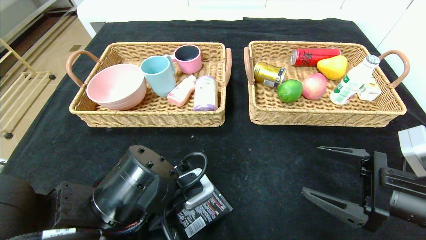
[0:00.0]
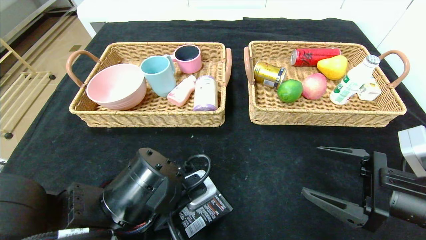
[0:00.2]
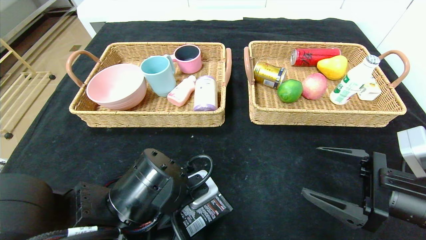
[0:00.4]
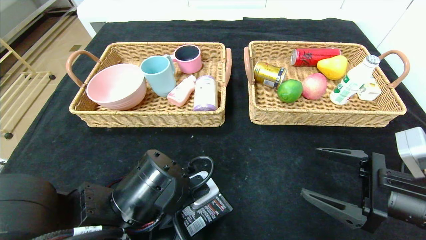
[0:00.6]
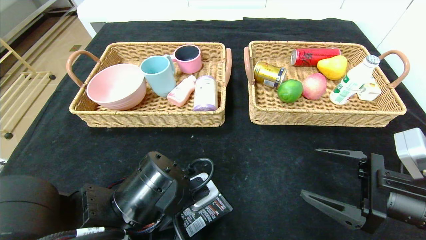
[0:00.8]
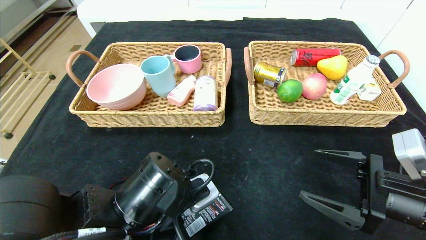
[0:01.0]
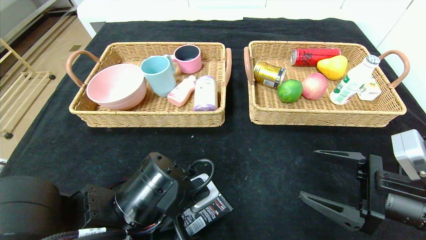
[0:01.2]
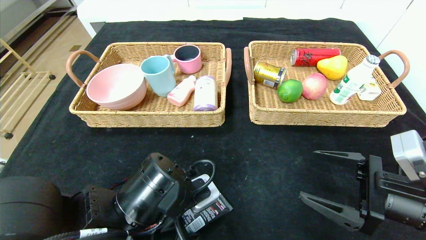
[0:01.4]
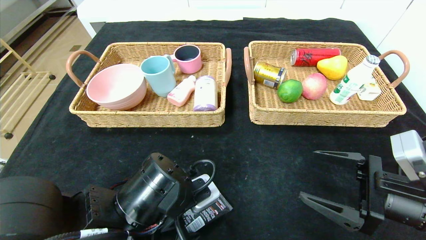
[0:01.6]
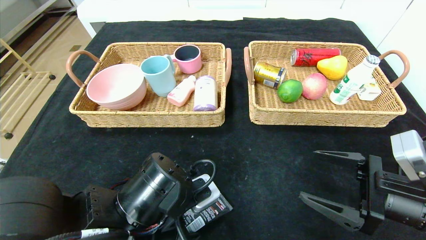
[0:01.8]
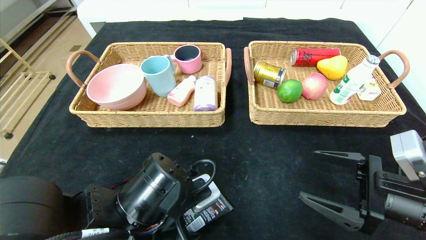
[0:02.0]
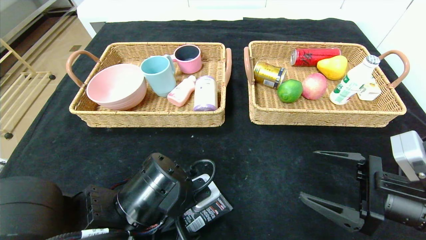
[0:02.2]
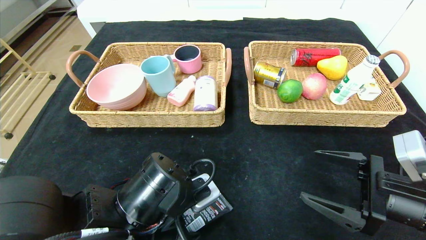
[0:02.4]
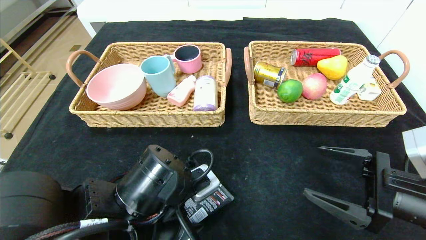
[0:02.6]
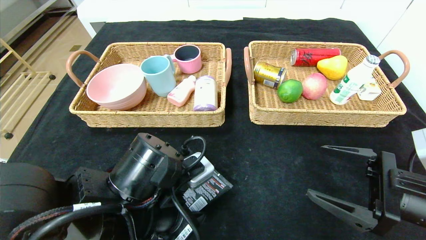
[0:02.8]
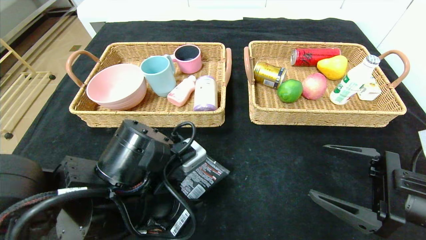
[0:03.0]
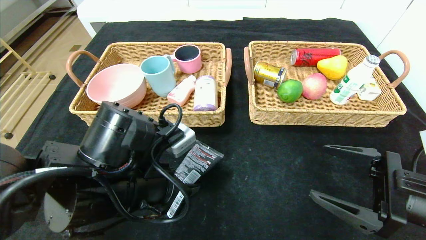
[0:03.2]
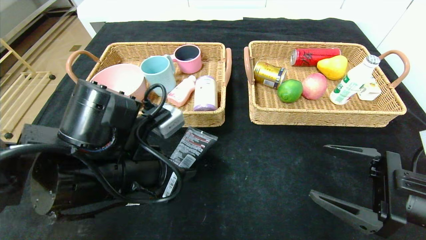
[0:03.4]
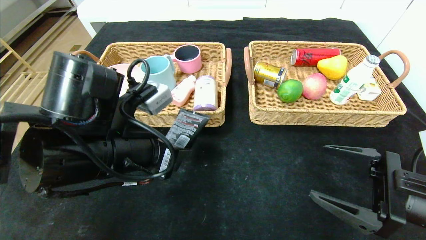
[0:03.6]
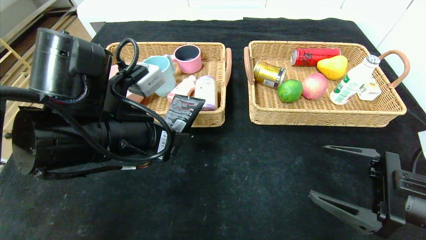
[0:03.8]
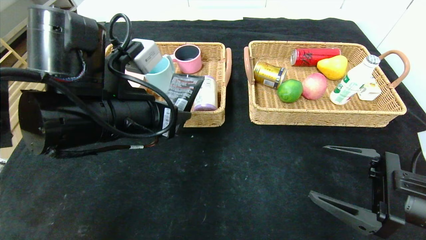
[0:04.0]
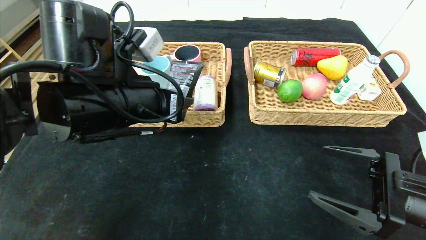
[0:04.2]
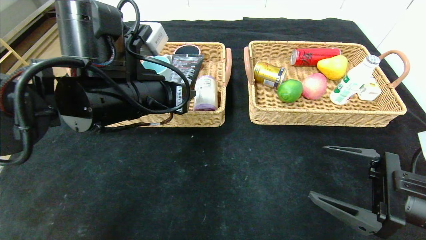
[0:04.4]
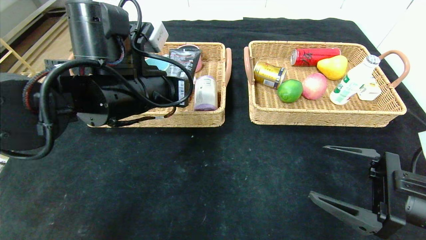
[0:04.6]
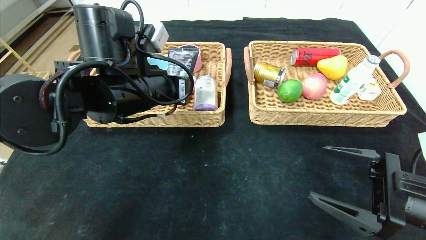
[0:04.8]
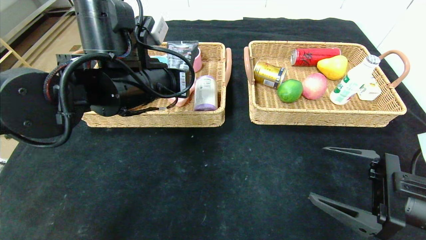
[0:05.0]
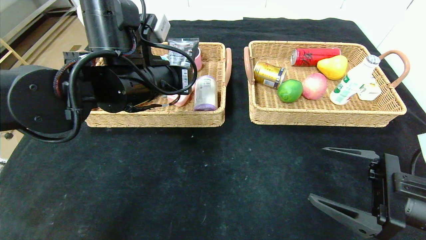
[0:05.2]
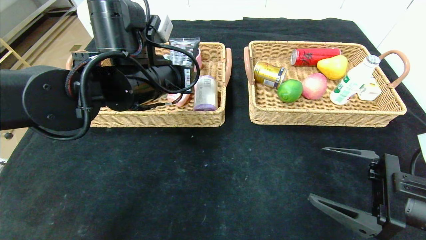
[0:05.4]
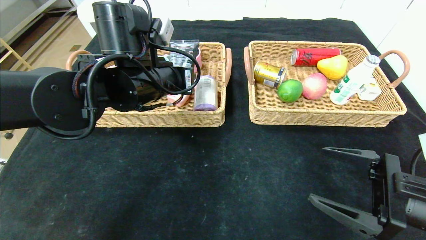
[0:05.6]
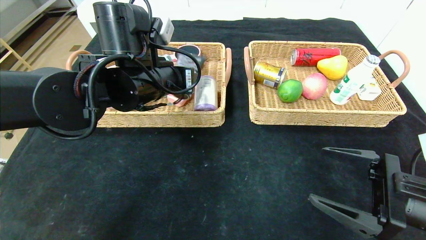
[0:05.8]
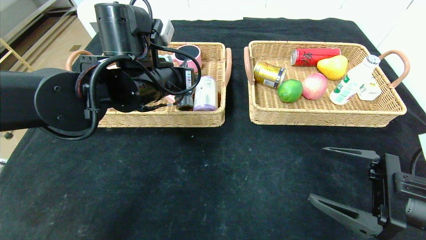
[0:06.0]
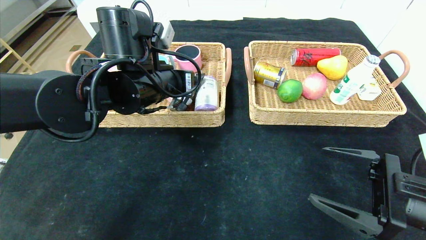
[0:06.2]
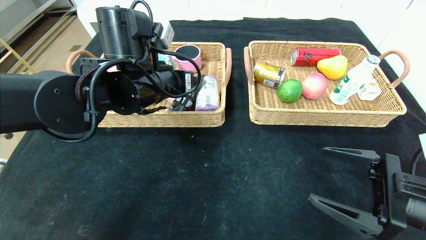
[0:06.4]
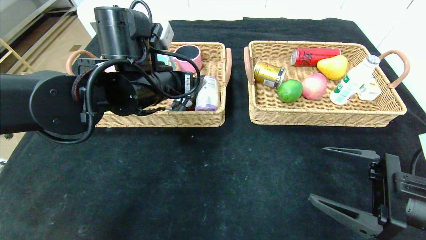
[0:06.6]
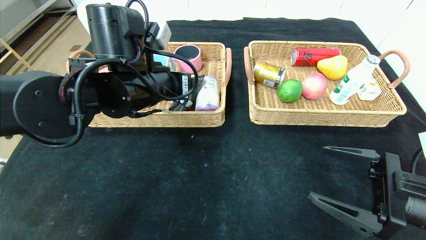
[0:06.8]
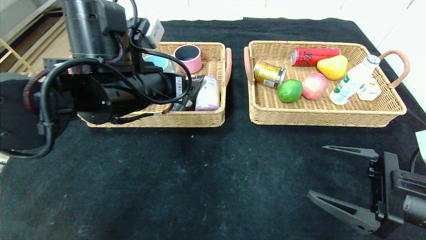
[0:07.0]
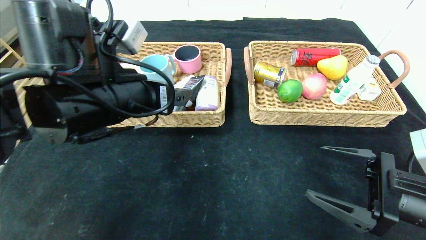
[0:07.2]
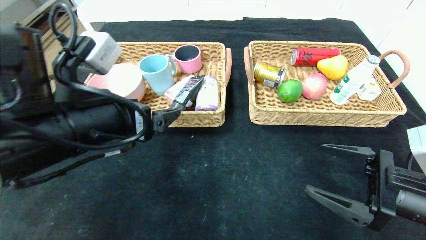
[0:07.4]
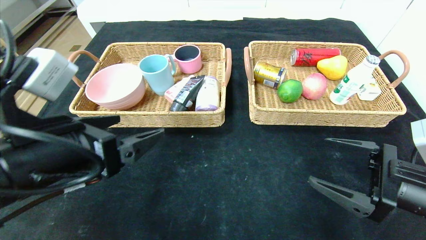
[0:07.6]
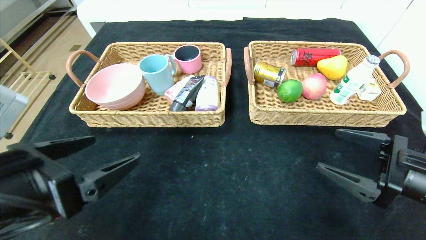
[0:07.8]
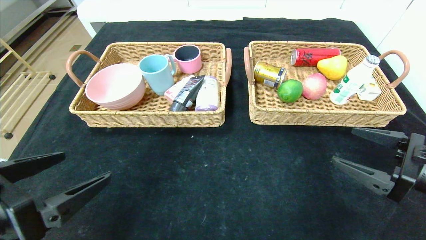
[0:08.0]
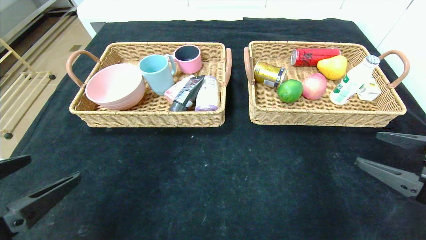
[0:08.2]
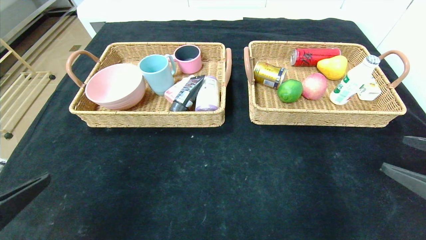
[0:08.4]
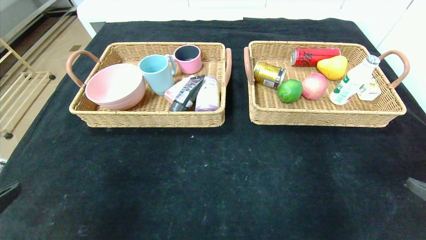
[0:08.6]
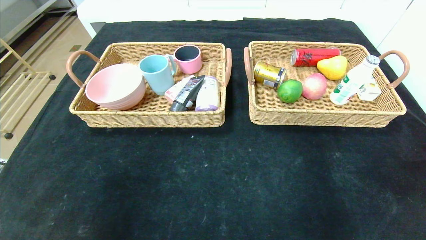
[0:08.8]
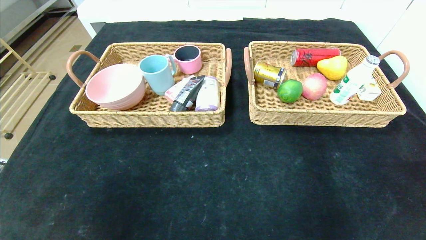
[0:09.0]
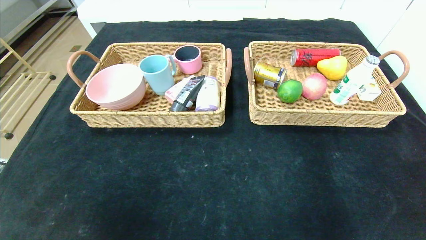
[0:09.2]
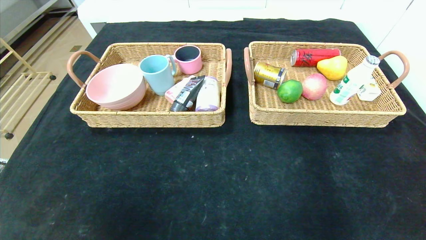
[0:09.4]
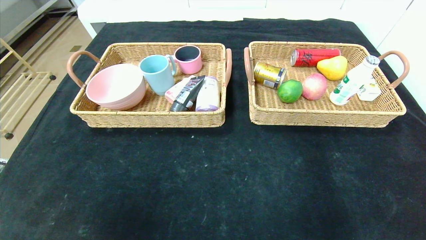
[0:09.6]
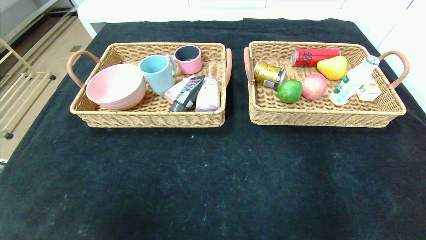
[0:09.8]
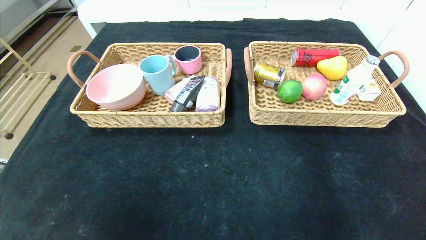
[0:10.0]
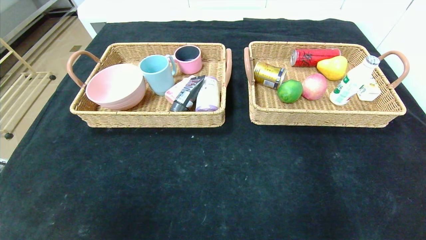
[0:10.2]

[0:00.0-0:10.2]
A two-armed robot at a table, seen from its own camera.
Step, 0:00.0 to 0:09.2: Pick up the soft cleanser and put it in the left basket.
0:00.0 to 0:01.4: The left gripper closes its fingers.
0:01.4 to 0:03.0: The grippers move only a little.
0:03.0 to 0:04.4: The left gripper heads upward and forward, covering about 15 cm.
0:04.4 to 0:05.8: The left gripper goes about 5 cm forward.
0:05.8 to 0:07.2: The left gripper shifts roughly 5 cm backward, and opens up.
0:07.2 to 0:08.8: The right gripper goes about 15 cm backward and to the right, while the left gripper moves backward and to the left, roughly 30 cm.

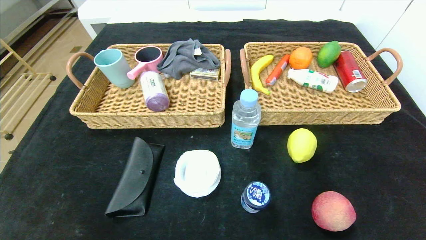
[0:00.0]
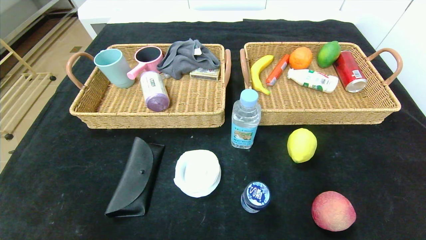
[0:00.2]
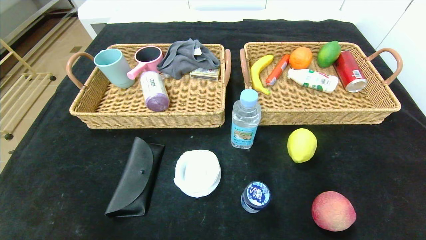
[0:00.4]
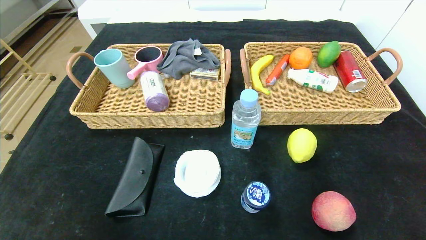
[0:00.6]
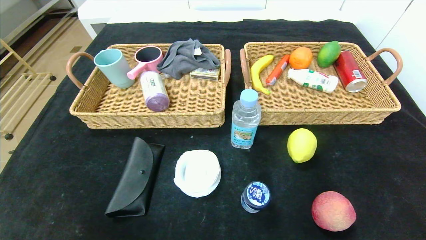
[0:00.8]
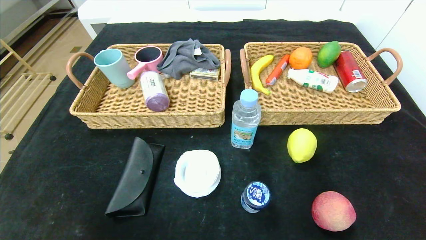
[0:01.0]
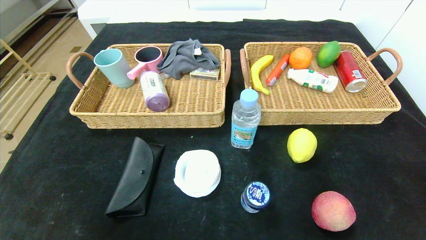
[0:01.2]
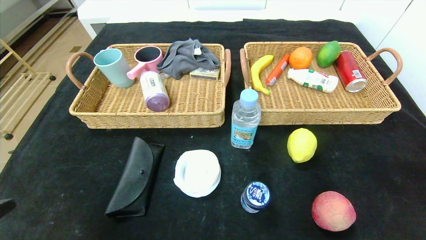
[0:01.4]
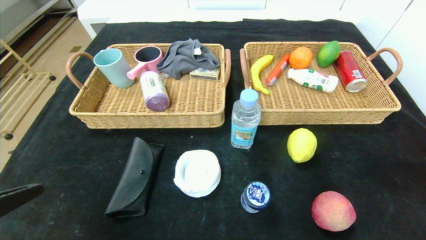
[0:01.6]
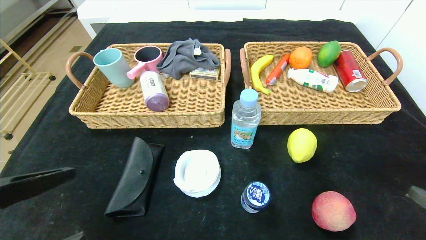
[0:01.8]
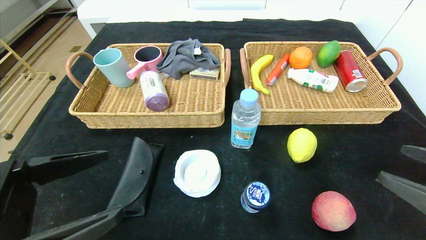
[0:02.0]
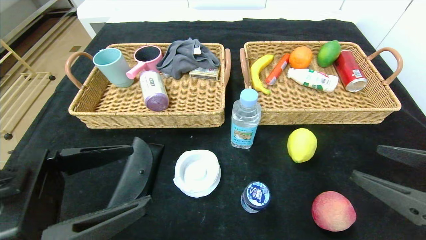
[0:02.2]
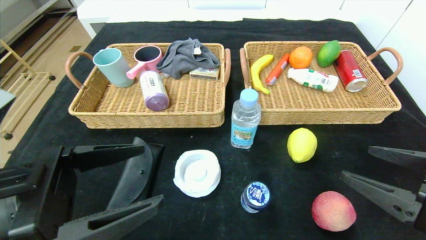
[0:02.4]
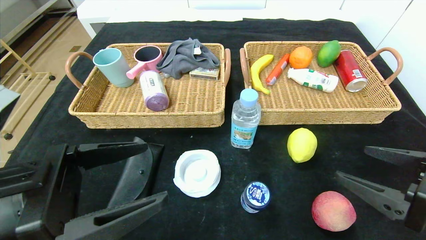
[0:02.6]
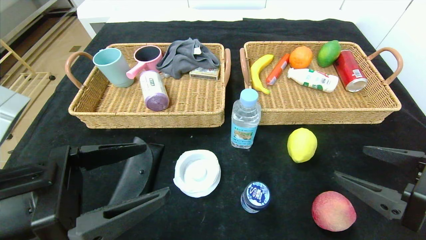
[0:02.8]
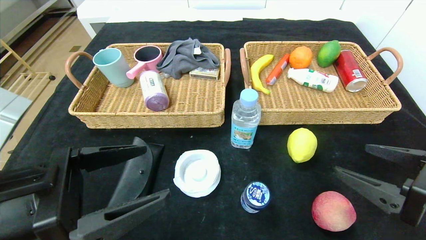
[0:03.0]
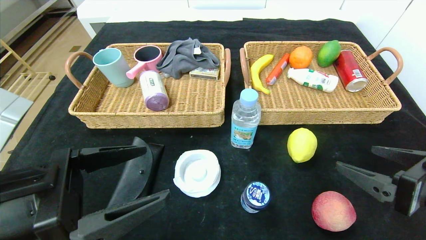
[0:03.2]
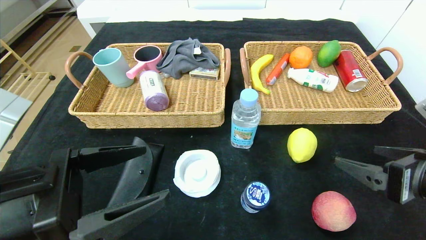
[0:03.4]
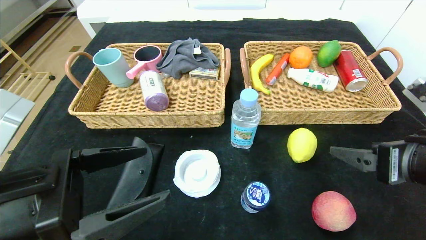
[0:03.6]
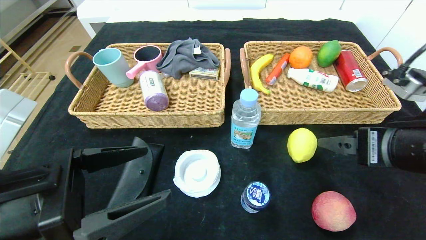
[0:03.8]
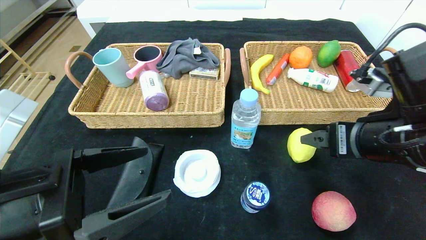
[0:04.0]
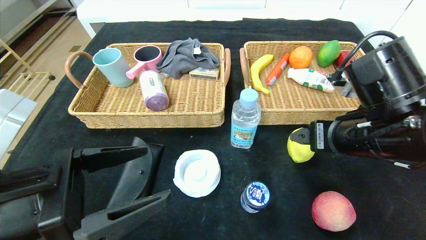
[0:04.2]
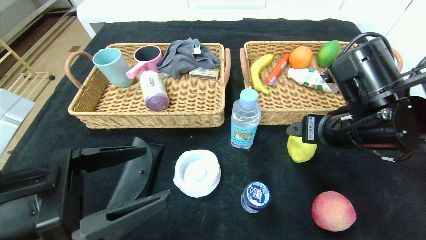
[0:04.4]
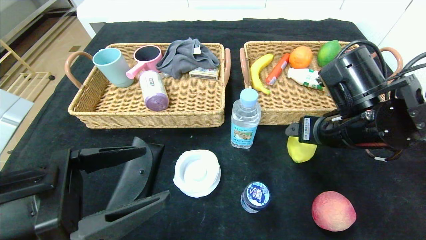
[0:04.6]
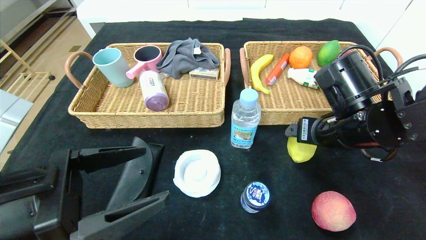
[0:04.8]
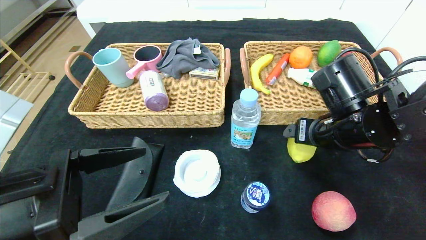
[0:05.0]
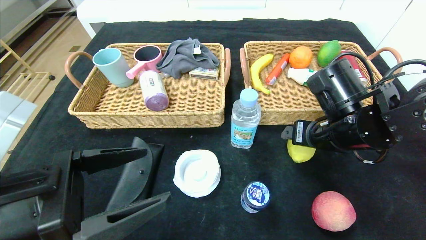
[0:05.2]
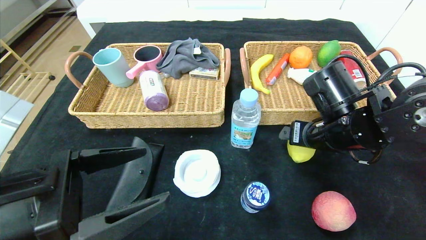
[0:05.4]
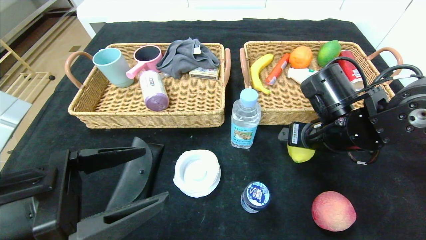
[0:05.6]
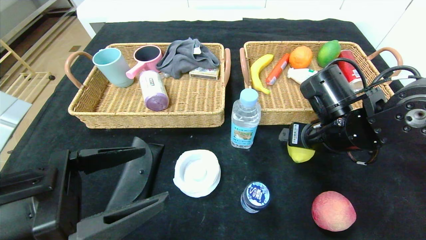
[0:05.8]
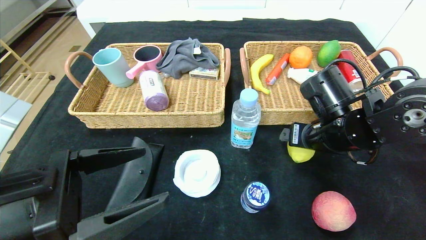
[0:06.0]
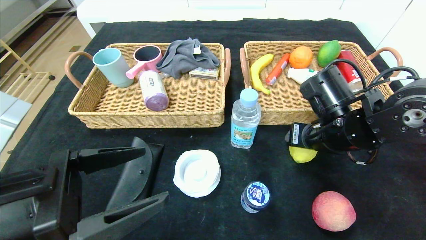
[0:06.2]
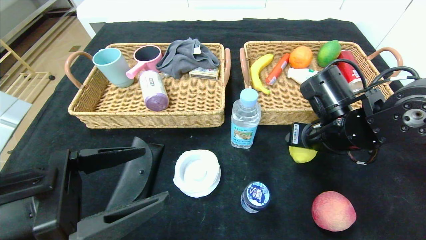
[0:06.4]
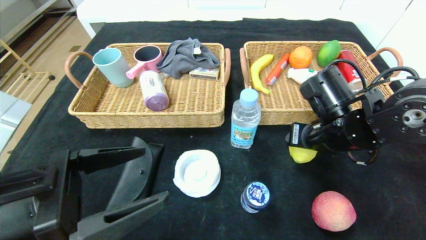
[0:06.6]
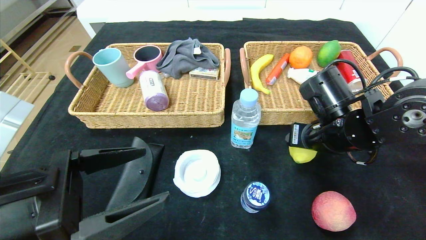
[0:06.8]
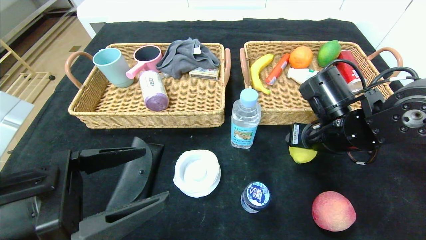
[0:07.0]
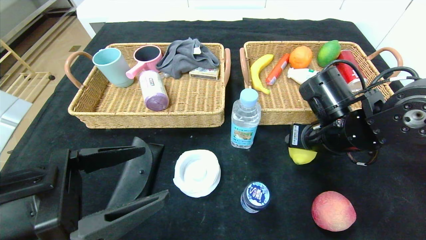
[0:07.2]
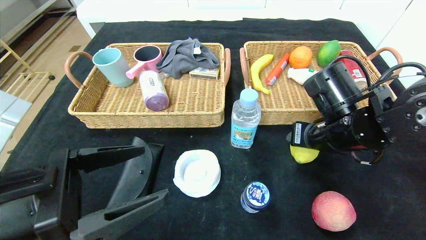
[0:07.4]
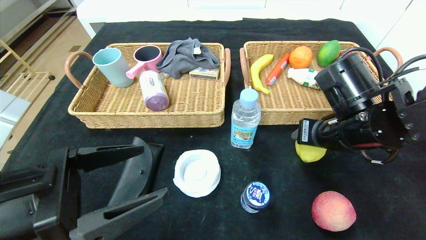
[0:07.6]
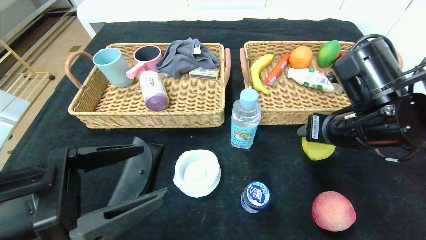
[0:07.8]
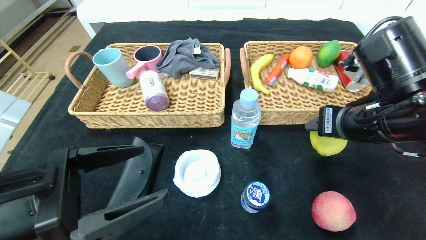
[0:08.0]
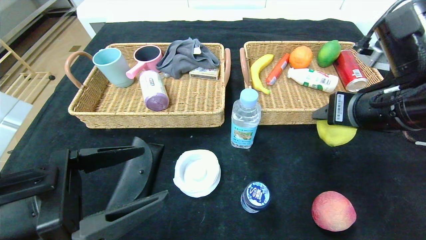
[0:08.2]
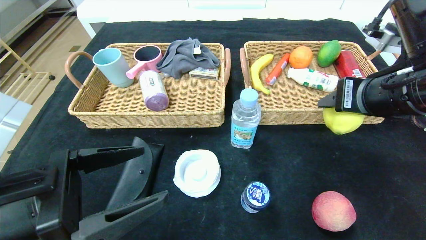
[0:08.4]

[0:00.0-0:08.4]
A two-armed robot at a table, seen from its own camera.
0:00.0 to 0:01.4: The left gripper travels upward by approximately 5 cm.
0:01.4 to 0:02.8: The left gripper moves forward and to the right, roughly 15 cm. The right gripper heads forward and to the left, covering roughly 10 cm.
0:02.8 to 0:04.2: The right gripper moves forward and to the left, roughly 15 cm.
0:04.2 to 0:05.6: The right gripper moves forward, approximately 5 cm.
0:05.6 to 0:07.0: The right gripper closes its fingers.
0:07.0 to 0:08.4: The right gripper shifts some 10 cm upward and backward.
